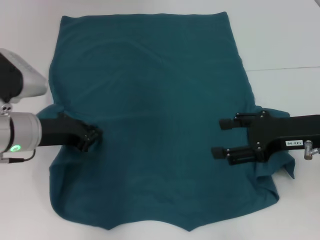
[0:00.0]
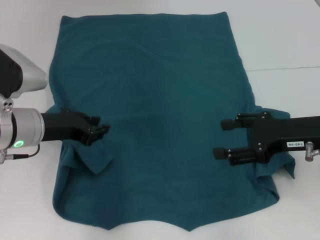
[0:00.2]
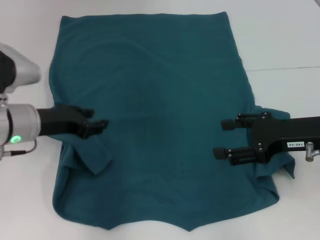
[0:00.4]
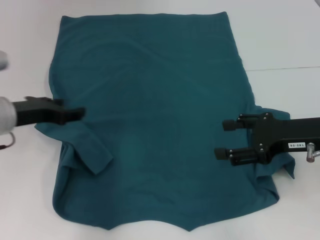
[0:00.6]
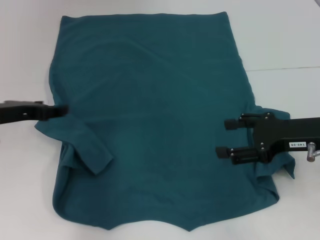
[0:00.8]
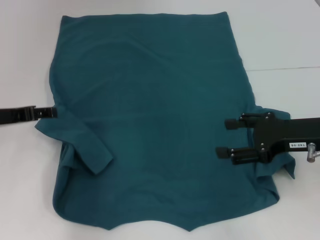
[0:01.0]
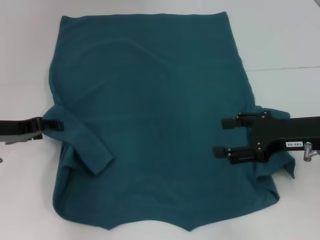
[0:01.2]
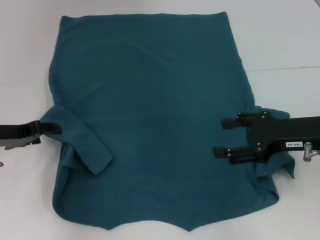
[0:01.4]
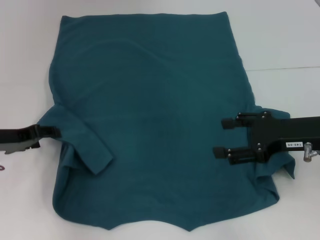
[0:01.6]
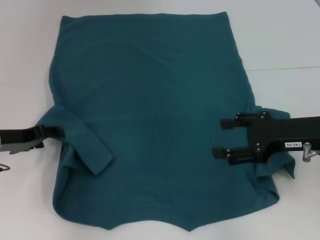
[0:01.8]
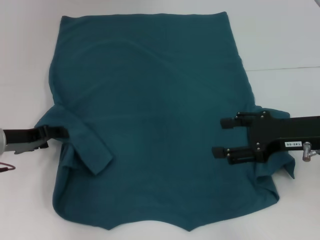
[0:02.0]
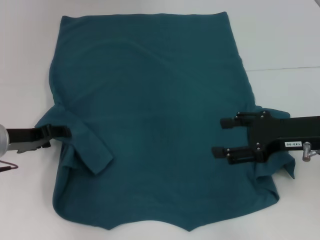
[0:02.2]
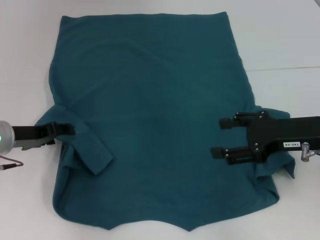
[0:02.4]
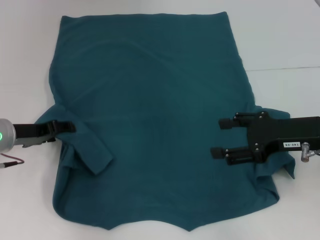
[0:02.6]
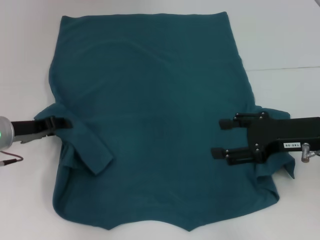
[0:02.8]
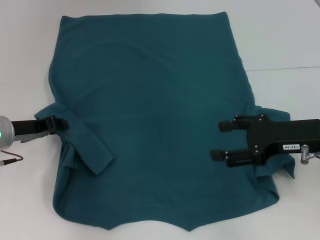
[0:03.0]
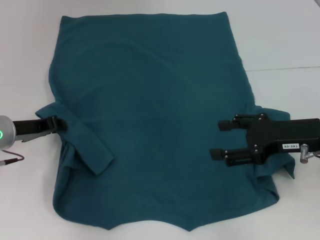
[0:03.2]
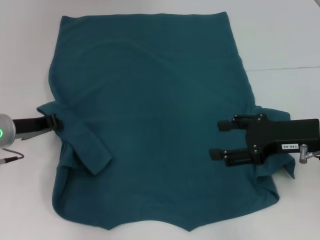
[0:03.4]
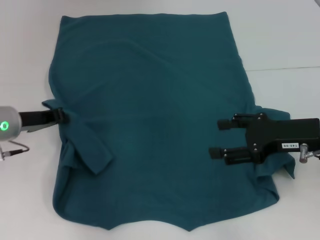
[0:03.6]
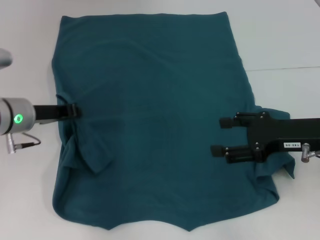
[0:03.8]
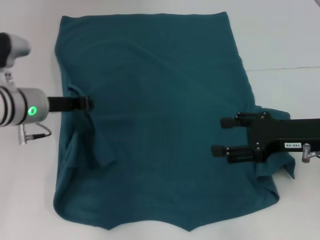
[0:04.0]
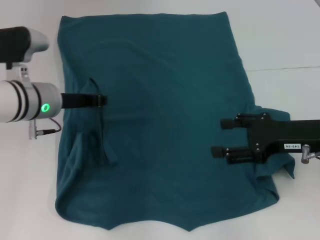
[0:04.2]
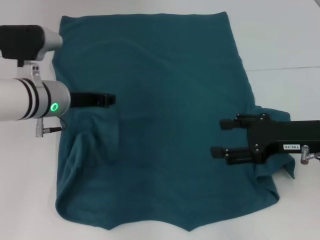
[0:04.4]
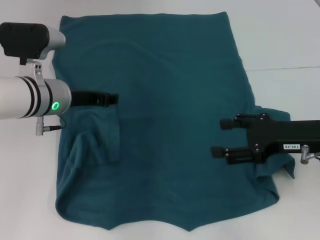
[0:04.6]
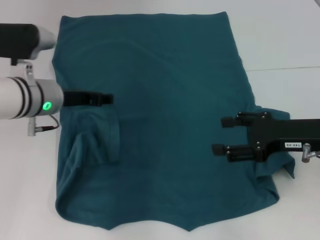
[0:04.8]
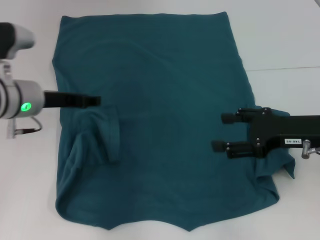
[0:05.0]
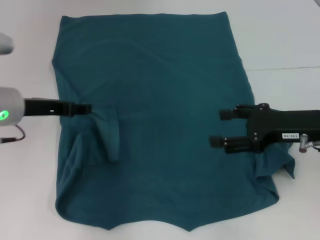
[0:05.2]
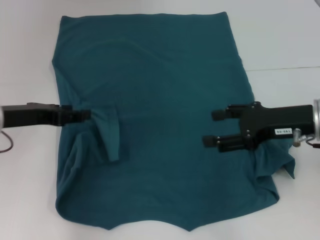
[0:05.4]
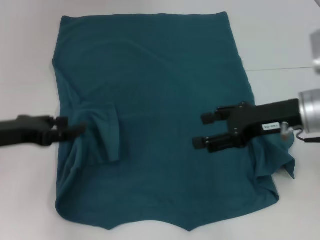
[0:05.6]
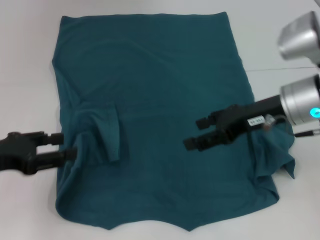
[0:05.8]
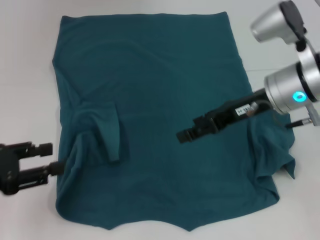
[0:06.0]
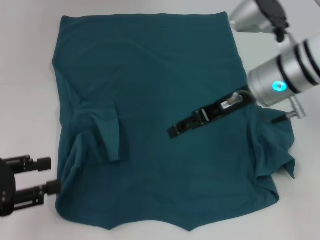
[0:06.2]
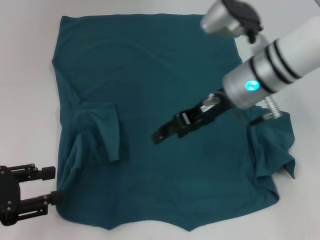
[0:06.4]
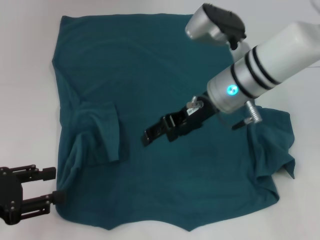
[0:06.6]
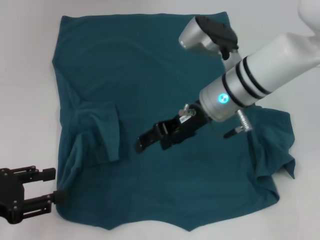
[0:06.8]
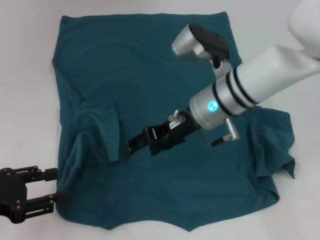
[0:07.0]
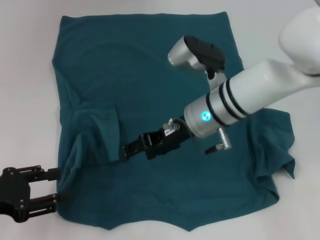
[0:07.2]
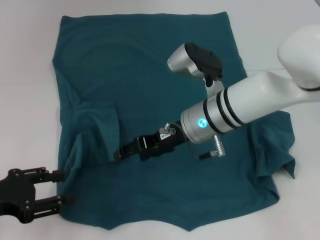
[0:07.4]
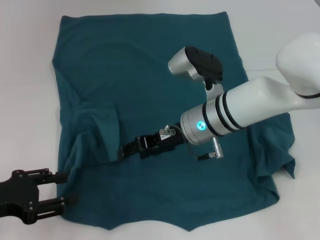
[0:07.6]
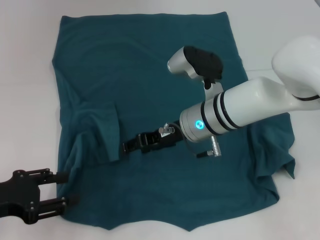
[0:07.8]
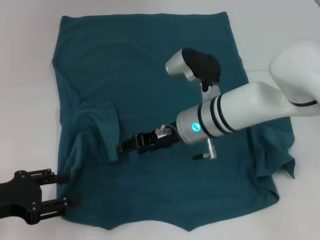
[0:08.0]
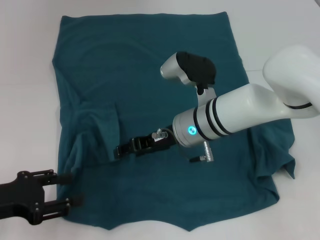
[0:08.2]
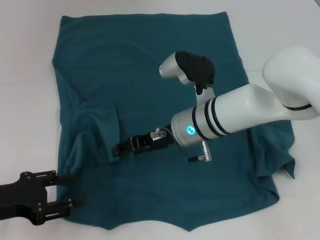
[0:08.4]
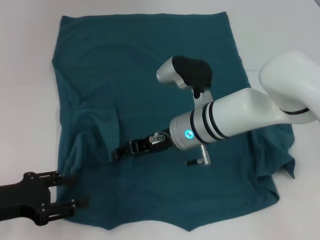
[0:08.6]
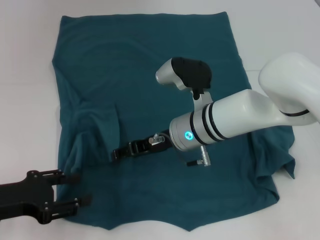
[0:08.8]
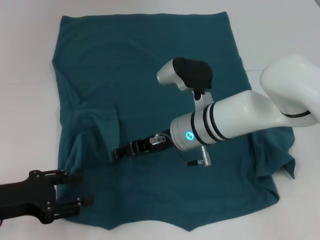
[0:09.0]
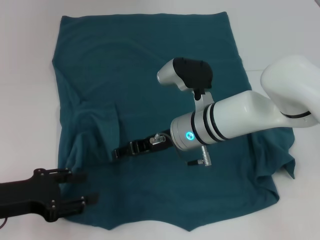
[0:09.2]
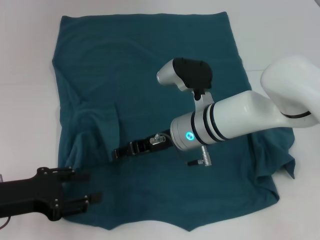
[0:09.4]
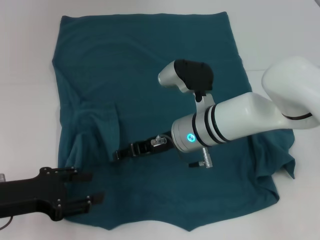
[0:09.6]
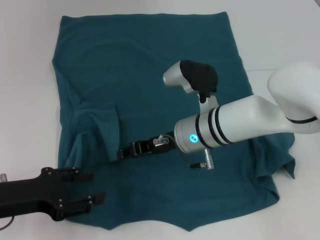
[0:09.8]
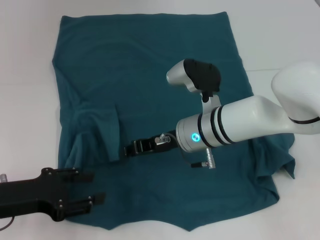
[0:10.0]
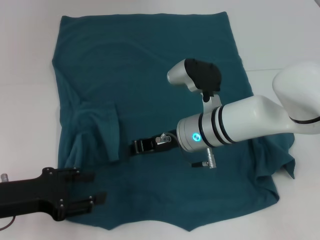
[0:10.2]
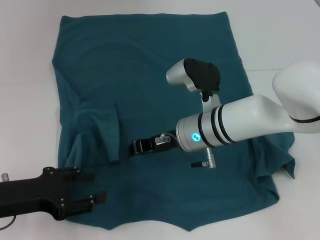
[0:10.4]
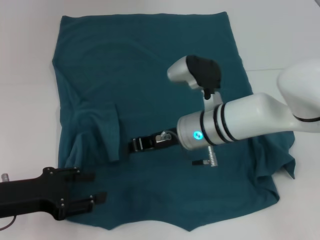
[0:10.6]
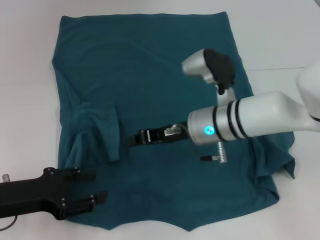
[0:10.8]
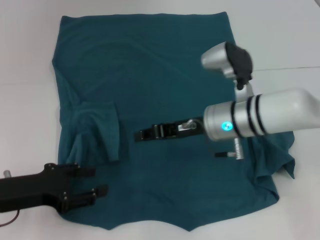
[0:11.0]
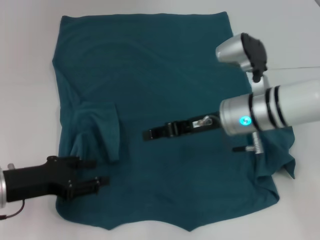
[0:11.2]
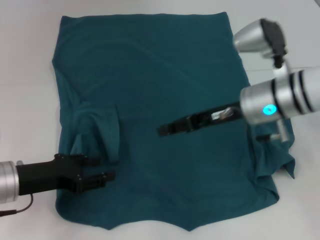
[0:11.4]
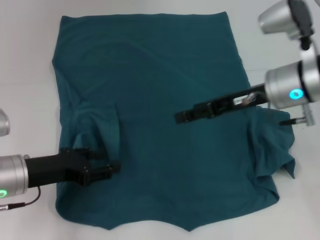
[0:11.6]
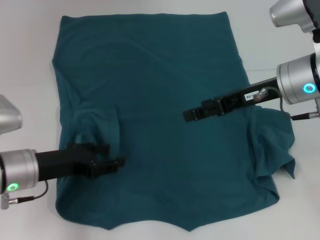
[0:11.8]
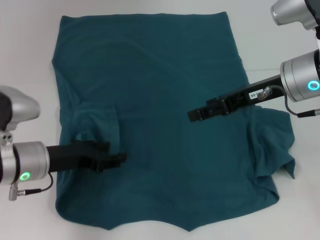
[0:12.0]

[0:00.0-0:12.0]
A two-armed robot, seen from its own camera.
Step, 0:00.0 to 0:04.8: Fold the bottom left sleeve with your left hand.
0:00.0 to 0:01.6: The left gripper is displaced to the left by roughly 10 cm, and opens up.
0:01.6 to 0:03.0: There are only small adjustments of the grippers.
0:03.0 to 0:04.4: The left gripper is displaced to the right by approximately 10 cm, and closes up.
0:04.4 to 0:06.0: The right gripper shifts some 10 cm to the left, forward and upward, while the left gripper shifts roughly 20 cm to the left and backward, and opens its fingers.
0:06.0 to 0:07.6: The right gripper travels to the left and downward by approximately 15 cm.
0:07.6 to 0:09.0: The grippers move only a little.
0:09.0 to 0:10.4: The right gripper closes its fingers.
0:10.4 to 0:12.0: The right gripper heads to the right and upward, covering roughly 15 cm, and opens; the left gripper heads forward and to the right, covering some 10 cm.

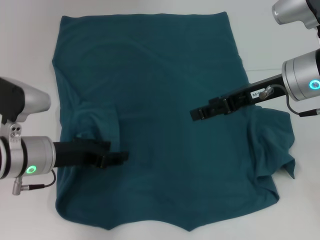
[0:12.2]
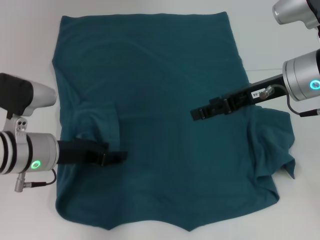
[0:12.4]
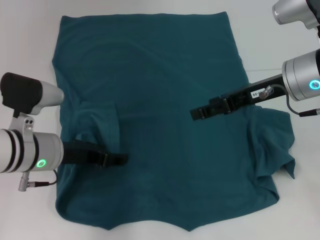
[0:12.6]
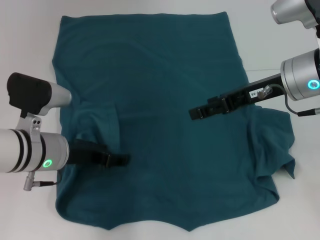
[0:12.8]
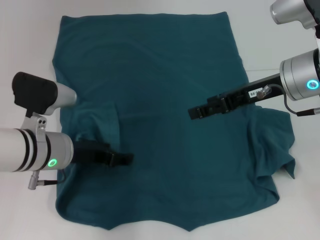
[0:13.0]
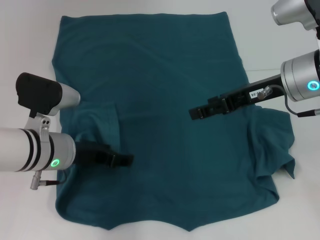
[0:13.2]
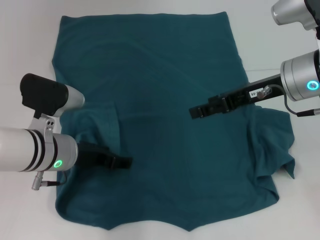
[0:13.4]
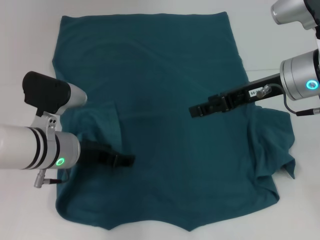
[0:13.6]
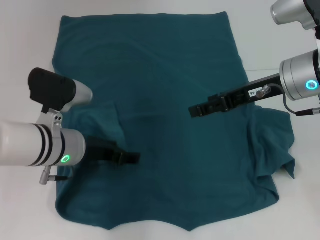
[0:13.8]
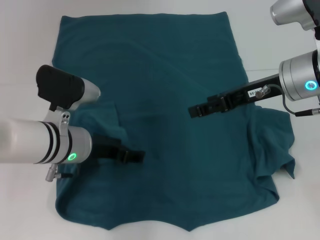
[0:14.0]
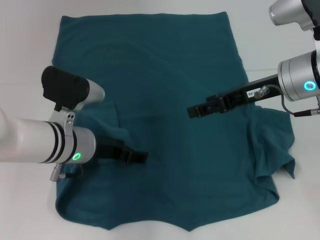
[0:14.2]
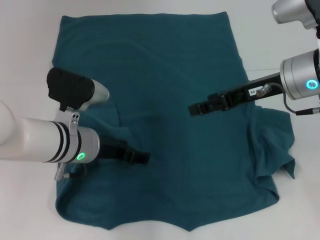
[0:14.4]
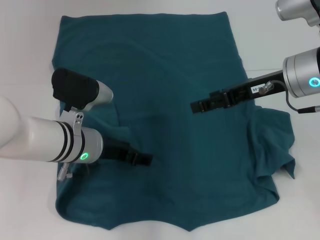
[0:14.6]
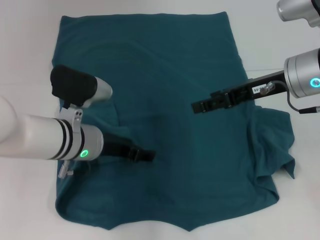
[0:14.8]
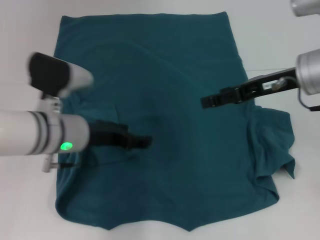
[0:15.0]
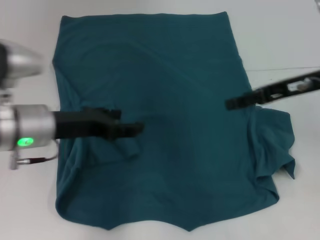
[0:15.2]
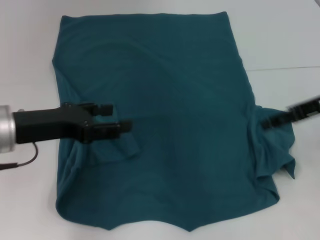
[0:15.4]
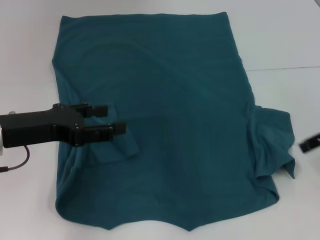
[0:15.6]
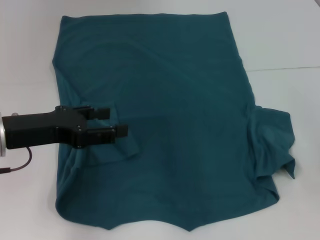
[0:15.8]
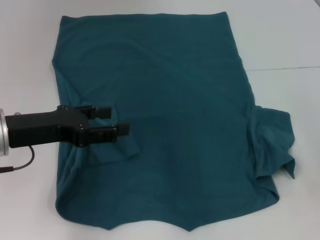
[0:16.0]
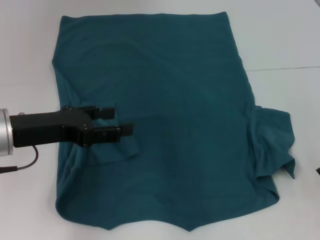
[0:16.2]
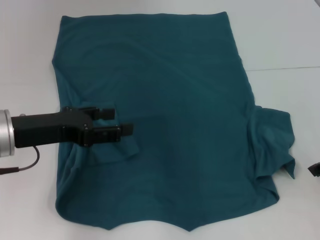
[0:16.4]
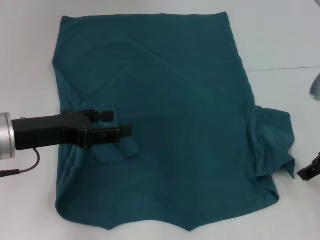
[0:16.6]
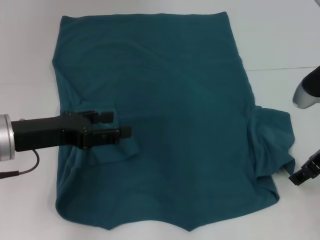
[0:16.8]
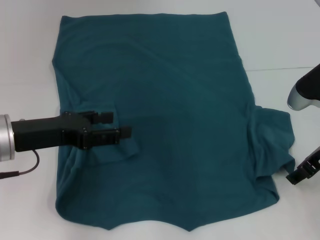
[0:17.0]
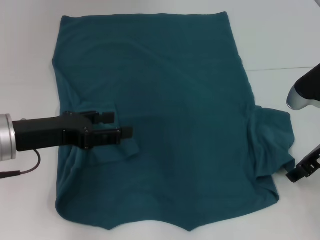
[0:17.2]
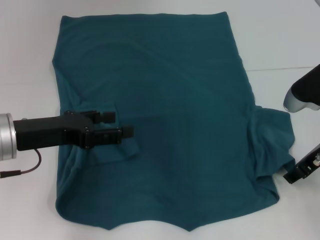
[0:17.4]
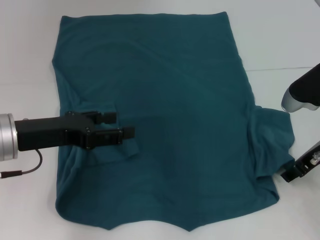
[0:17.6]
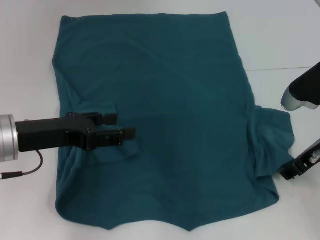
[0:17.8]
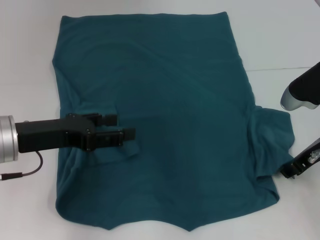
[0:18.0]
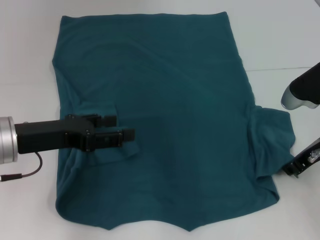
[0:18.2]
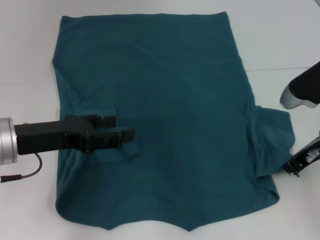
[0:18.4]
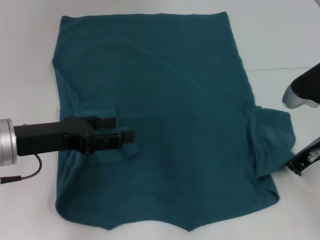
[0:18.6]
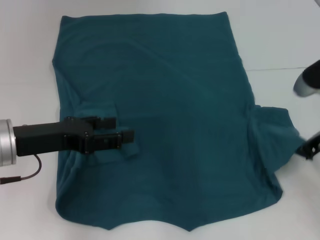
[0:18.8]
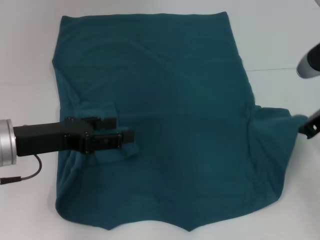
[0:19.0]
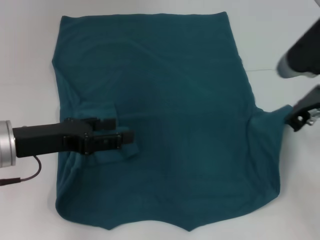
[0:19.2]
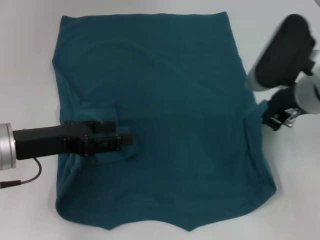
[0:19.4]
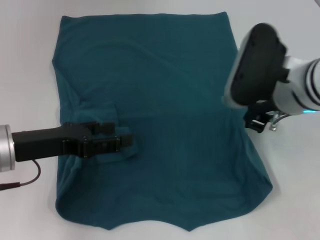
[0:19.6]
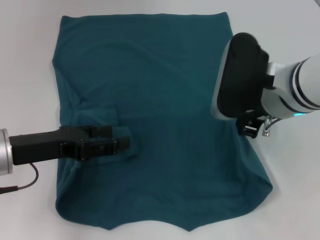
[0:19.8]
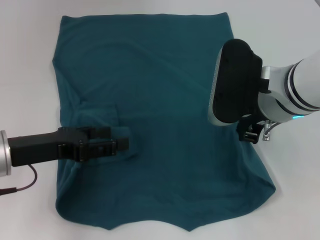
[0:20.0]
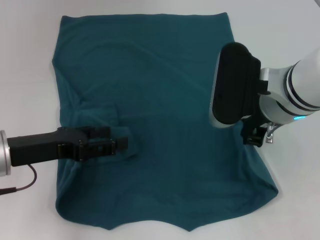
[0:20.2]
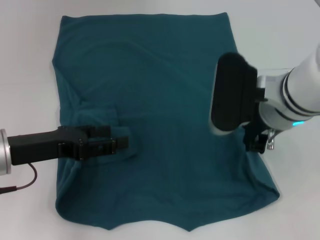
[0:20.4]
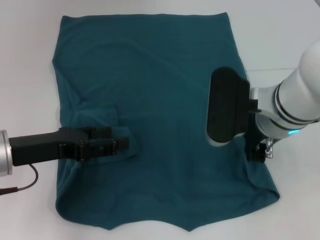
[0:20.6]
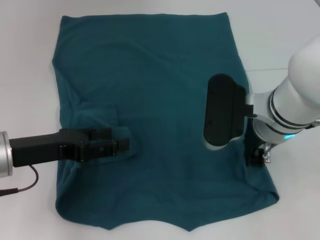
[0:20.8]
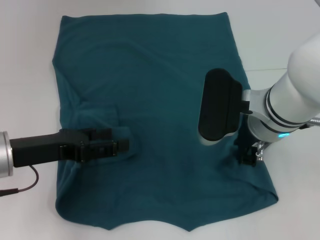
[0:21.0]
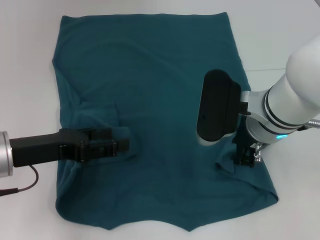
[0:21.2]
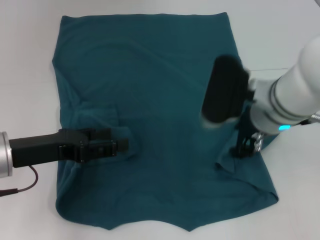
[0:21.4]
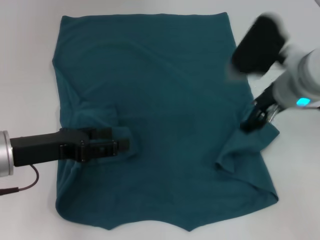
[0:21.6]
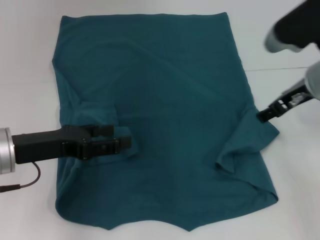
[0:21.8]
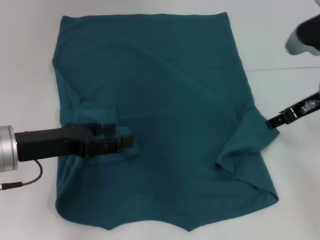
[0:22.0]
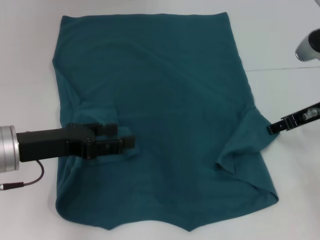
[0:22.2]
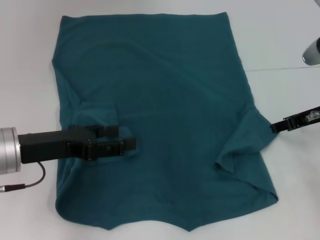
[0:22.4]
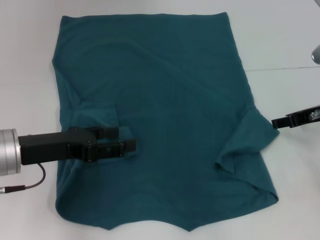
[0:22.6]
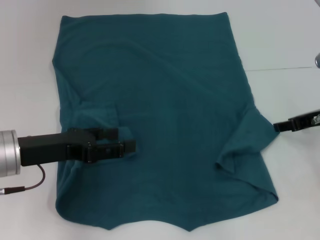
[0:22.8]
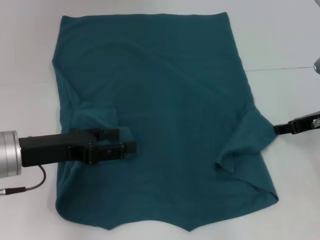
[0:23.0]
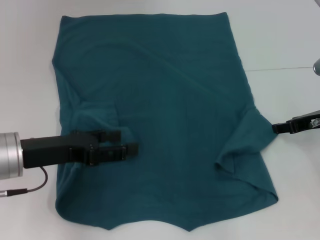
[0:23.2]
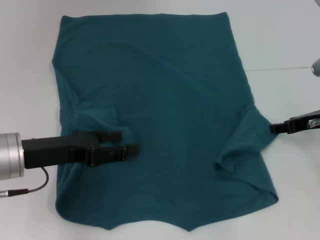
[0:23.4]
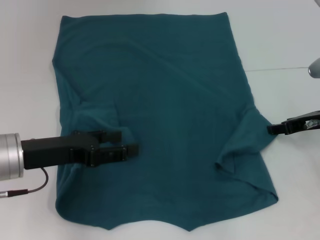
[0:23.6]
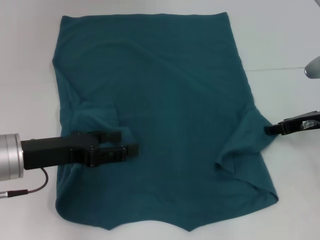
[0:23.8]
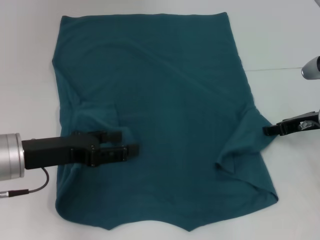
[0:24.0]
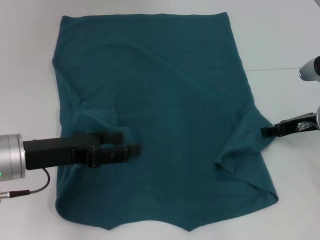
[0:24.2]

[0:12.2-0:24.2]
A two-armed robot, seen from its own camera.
0:12.2 to 0:13.8: The left gripper changes place by some 5 cm.
0:13.8 to 0:15.2: The left gripper goes roughly 5 cm upward. Meanwhile the right gripper travels to the right by about 5 cm.
0:15.2 to 0:16.6: The right gripper ends up some 5 cm from where it was.
0:16.6 to 0:18.2: The right gripper closes up.
0:18.2 to 0:19.8: The right gripper moves to the left and upward, about 15 cm, and closes its fingers.
0:19.8 to 0:21.2: The grippers move only a little.
0:21.2 to 0:22.6: The right gripper moves to the right, approximately 15 cm, and opens up.
0:22.6 to 0:24.2: The grippers stay close to where they were, moving slightly.
